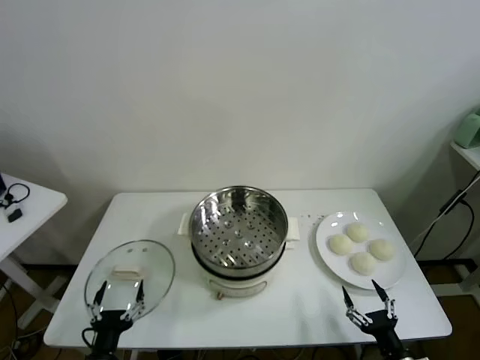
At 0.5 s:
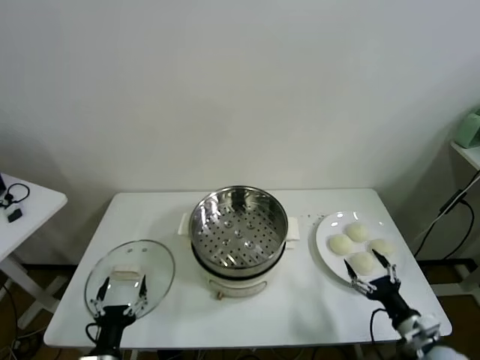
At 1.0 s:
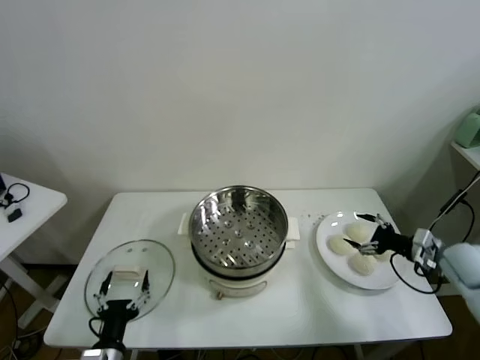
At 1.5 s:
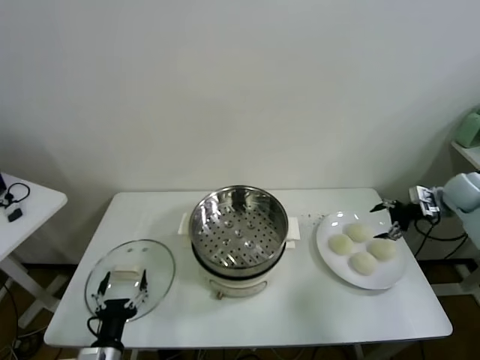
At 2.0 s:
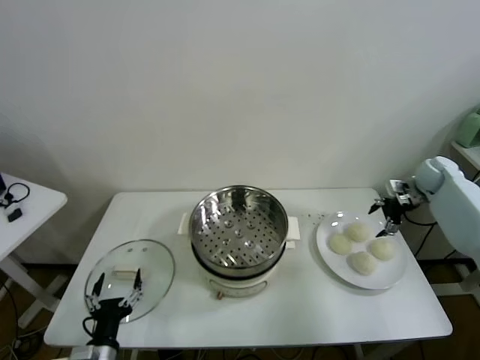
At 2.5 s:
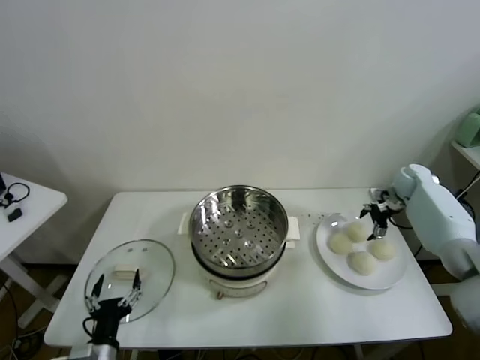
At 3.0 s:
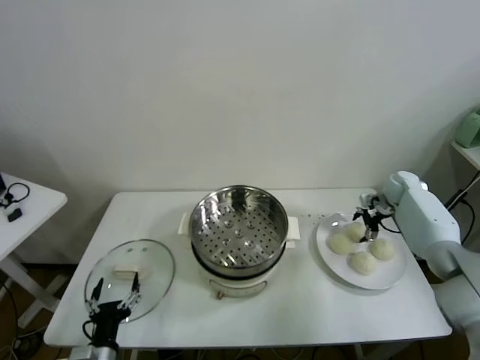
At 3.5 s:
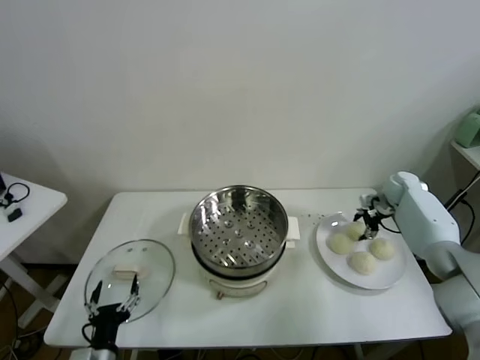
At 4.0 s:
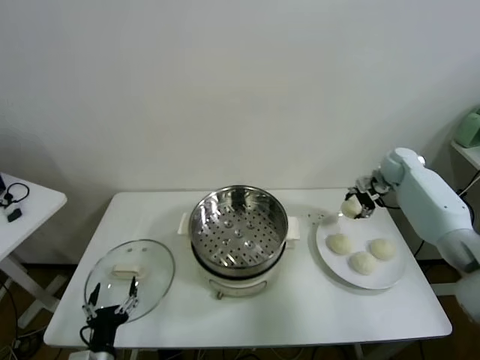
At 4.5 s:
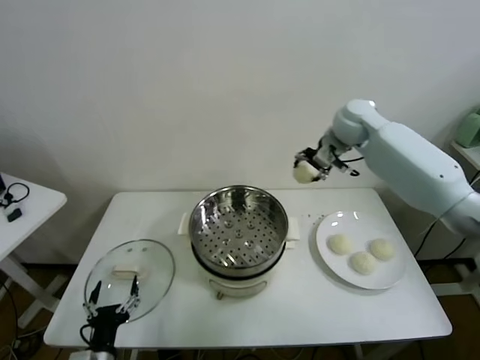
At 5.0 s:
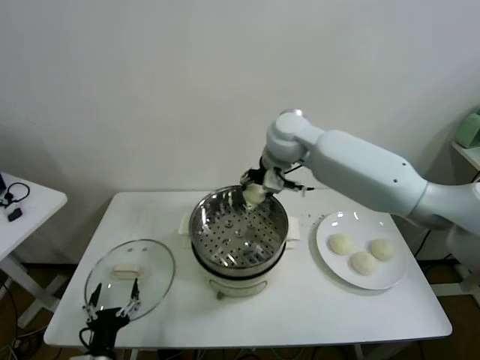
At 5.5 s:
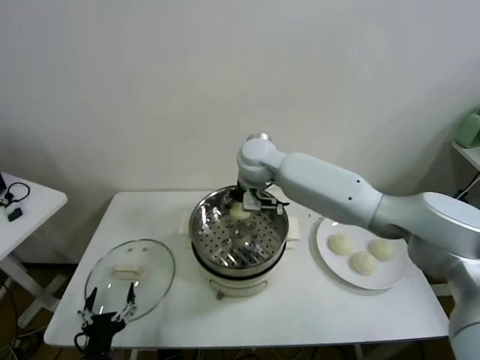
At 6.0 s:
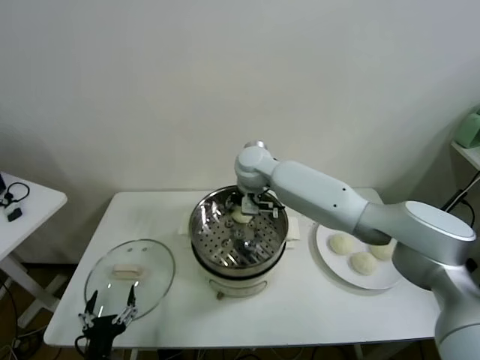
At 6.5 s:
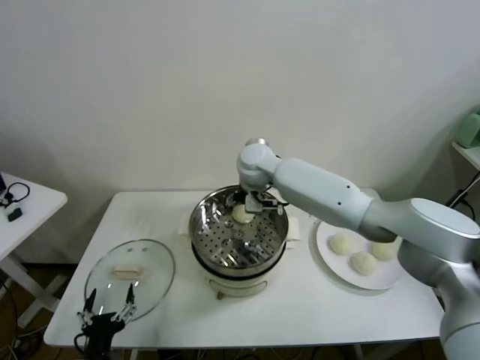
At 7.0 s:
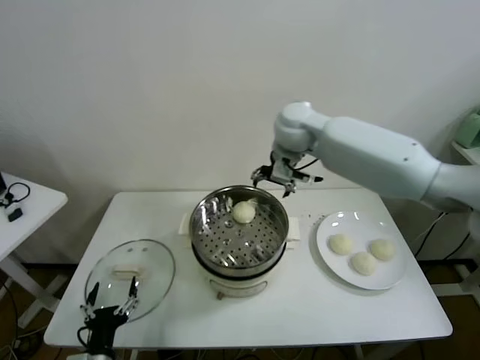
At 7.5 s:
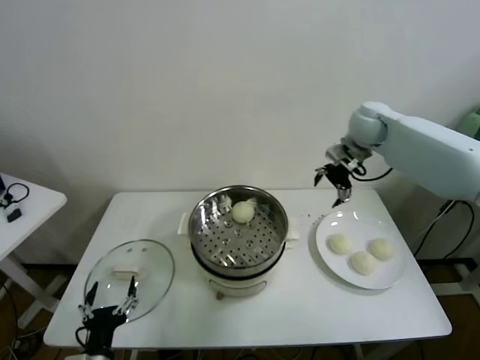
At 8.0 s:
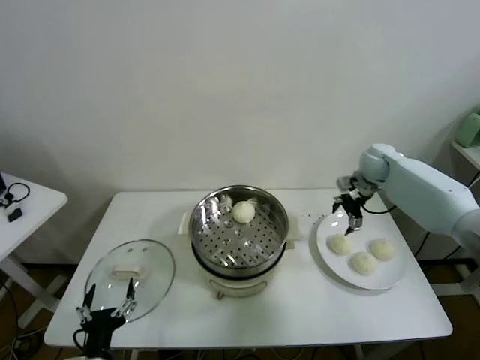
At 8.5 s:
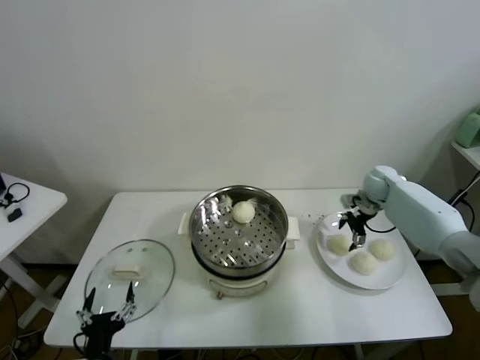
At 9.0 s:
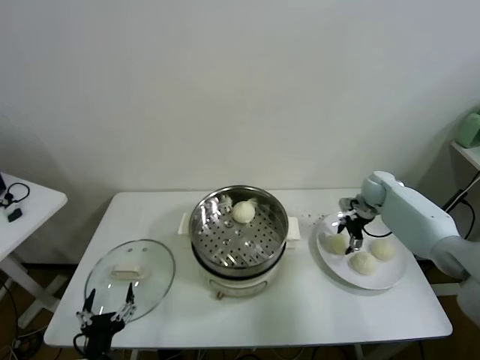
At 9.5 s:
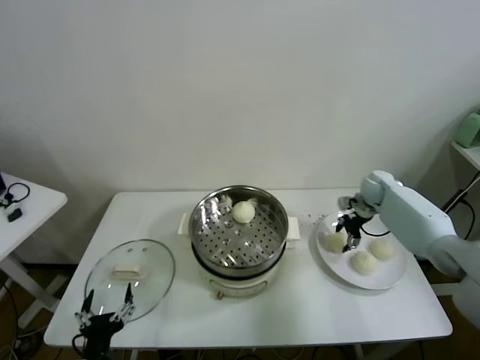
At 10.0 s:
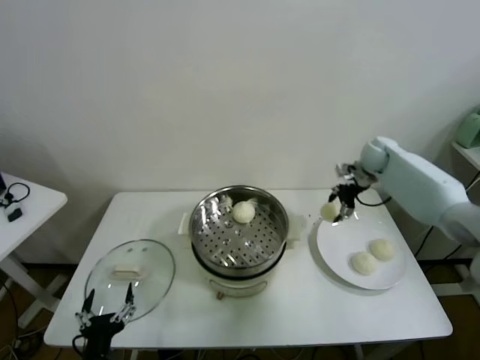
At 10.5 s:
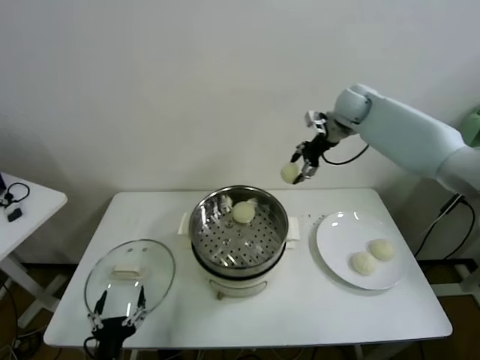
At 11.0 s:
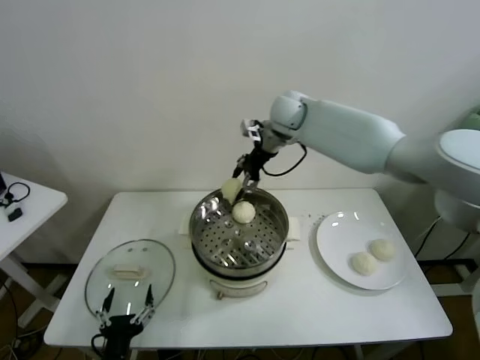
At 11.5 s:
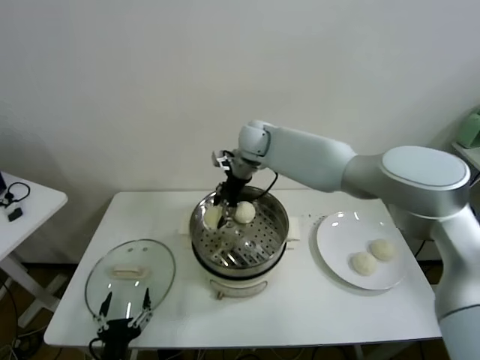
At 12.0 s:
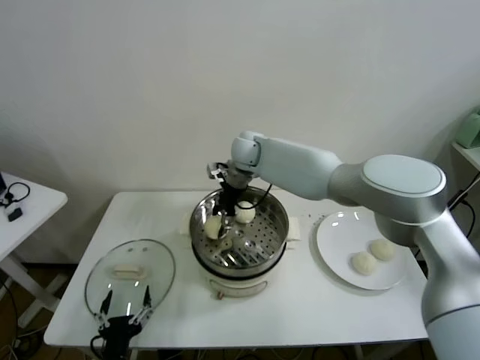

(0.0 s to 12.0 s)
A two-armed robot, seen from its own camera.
Task of the whole recording: take steamed baozi put them in steamer.
Step, 0.0 s - 3.0 s: Grasp the baozi in the plate with right gripper.
Step, 3.5 s - 6.0 s: Place the baozi on the steamer with right gripper.
Step, 6.5 s - 9.0 s: Grasp the baozi in the plate with right gripper.
2.0 s - 4.0 s: The right gripper heads to the left, covering about 10 cm, and closes.
4.0 s - 6.0 s: The right gripper shifts some 40 cm to the left.
6.0 s - 8.0 s: The right gripper shifts approximately 35 cm to the right, and opens up.
8.0 s - 10.0 s: The right gripper moves some 5 cm, and closes up.
10.0 s - 12.0 s: The right gripper shifts about 35 cm to the left.

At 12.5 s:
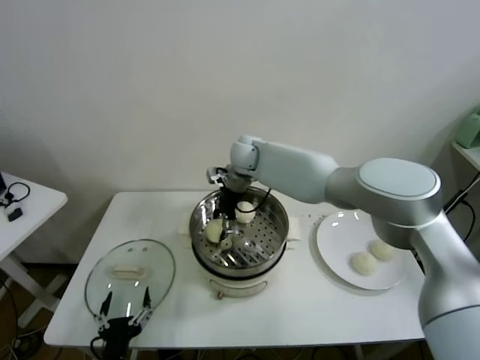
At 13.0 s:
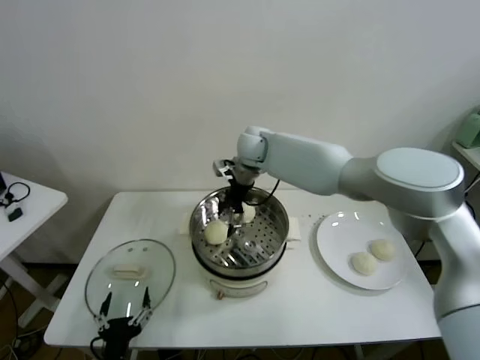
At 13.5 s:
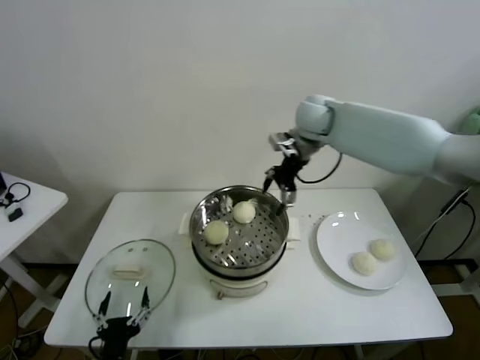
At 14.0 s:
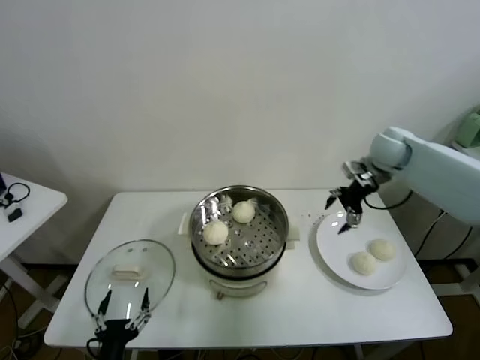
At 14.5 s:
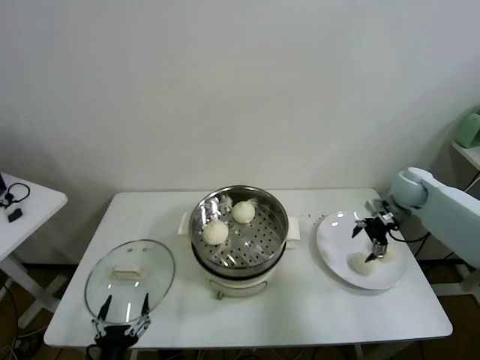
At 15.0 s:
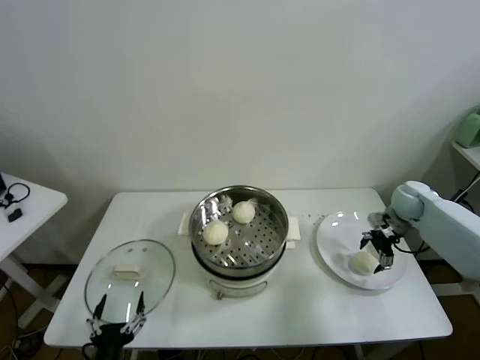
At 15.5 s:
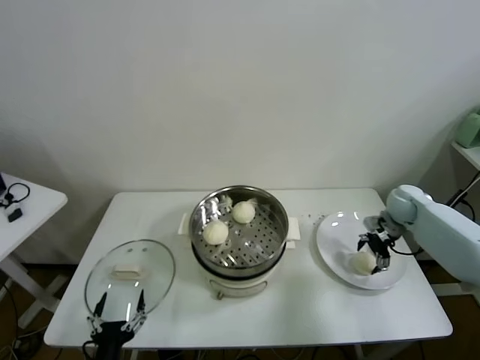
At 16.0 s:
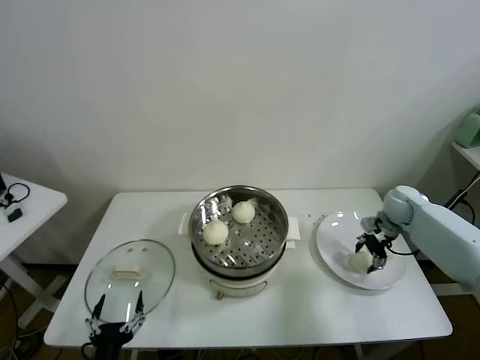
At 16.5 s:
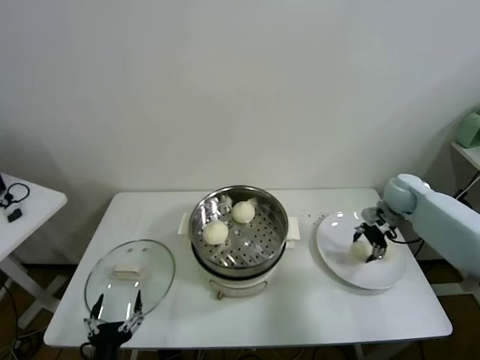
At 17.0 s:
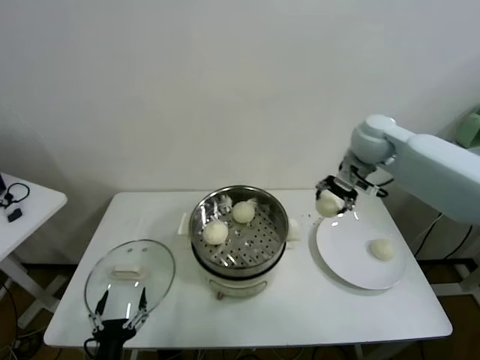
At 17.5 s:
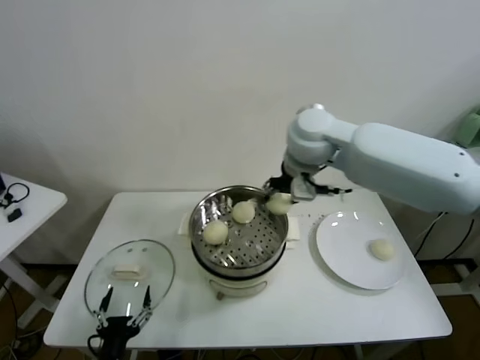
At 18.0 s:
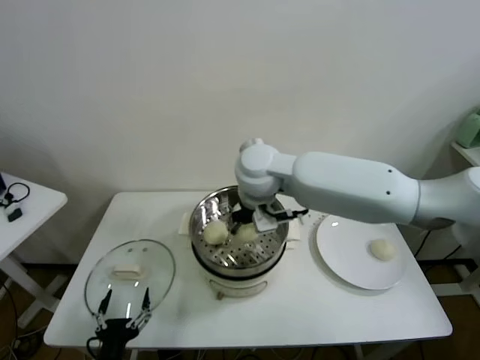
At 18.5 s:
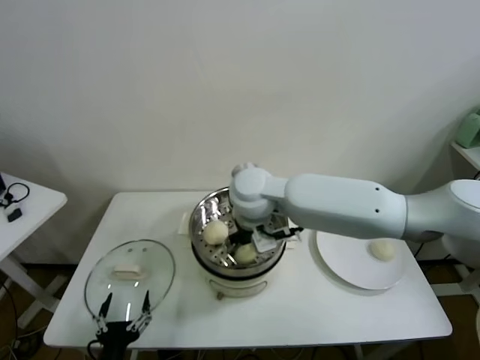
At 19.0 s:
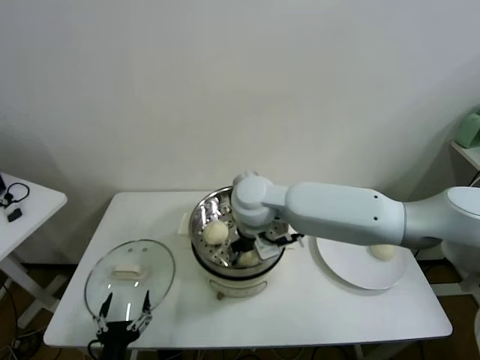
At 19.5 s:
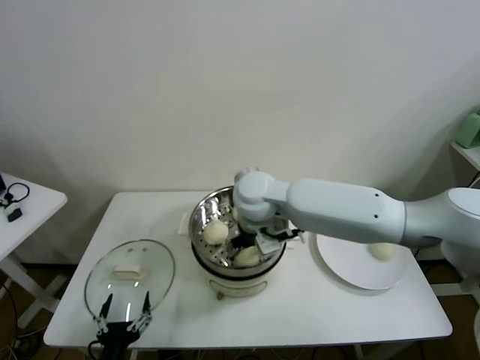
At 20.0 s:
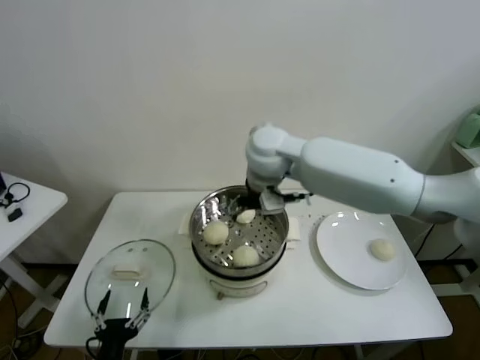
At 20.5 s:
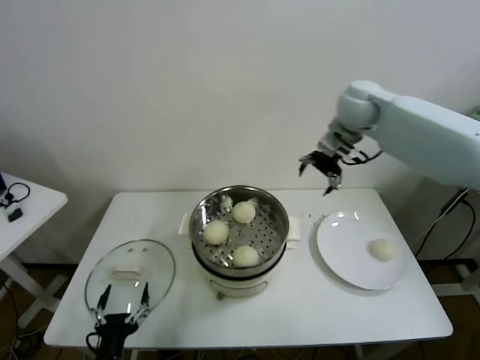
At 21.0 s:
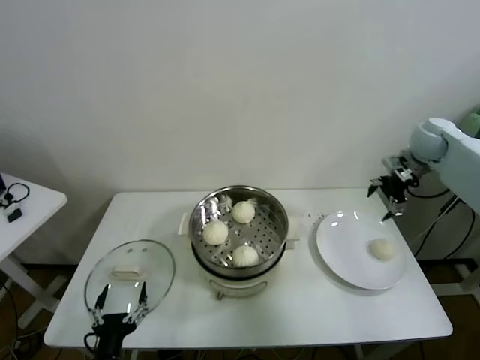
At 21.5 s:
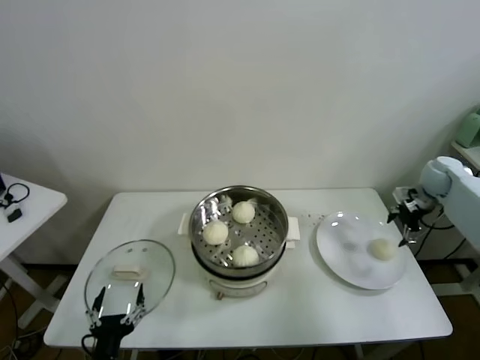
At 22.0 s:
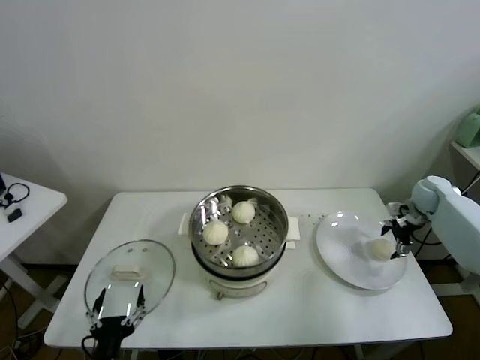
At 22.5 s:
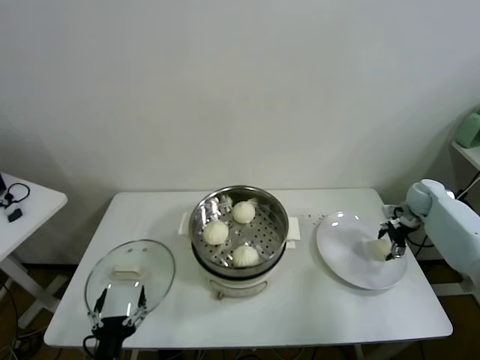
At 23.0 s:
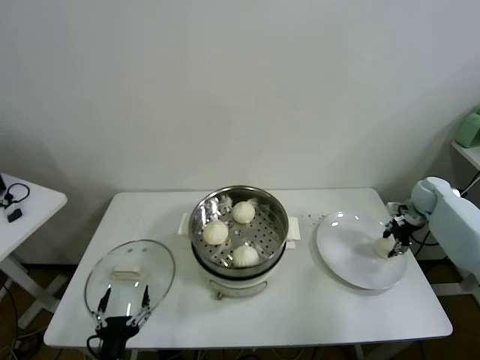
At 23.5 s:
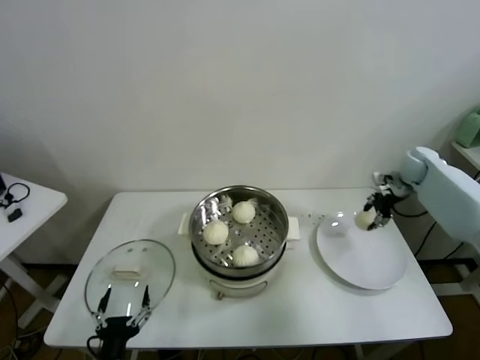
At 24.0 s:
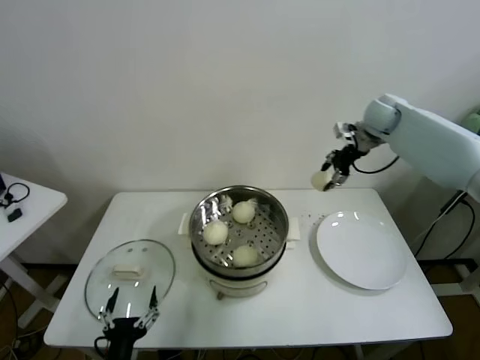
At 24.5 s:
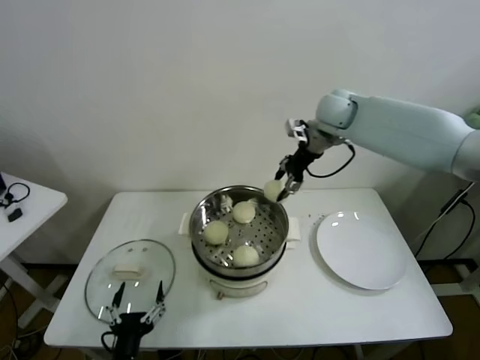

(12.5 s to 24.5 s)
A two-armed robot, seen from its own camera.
Task of the whole recording: take steamed baozi put them in steamer.
Step, 13.0 s - 16.0 s: Grasp the baozi in the plate with right gripper.
Step, 16.5 s - 19.0 s: Place the baozi on the steamer with right gripper.
Step, 19.5 s - 22.5 s: Grasp the baozi in the plate with right gripper.
12.5 s - 14.5 s: The right gripper moves to the right, some 40 cm.
14.5 s - 16.5 s: The right gripper closes its fingers.
16.5 s - 18.5 s: The right gripper goes about 40 cm to the left.
18.5 s - 20.5 s: The right gripper goes roughly 30 cm to the right, forward and upward, and opens.
20.5 s - 22.5 s: The right gripper is displaced downward and to the right by roughly 35 cm.
22.5 s - 24.5 s: The right gripper moves to the left and upward, approximately 35 cm, and closes up.

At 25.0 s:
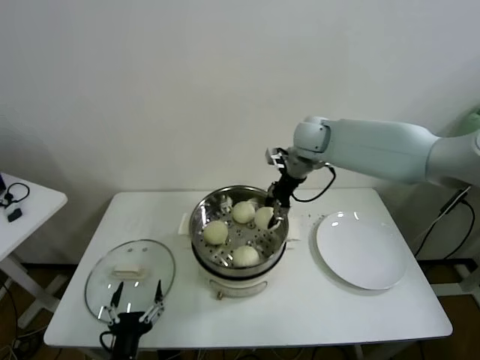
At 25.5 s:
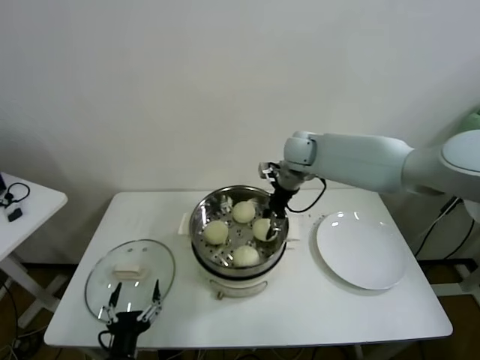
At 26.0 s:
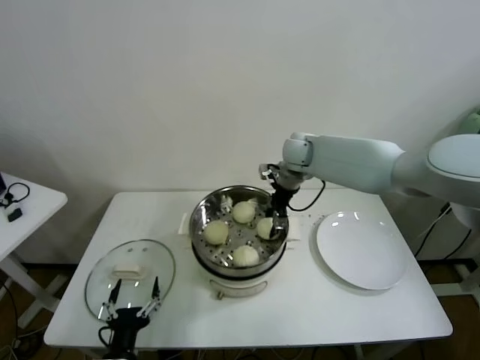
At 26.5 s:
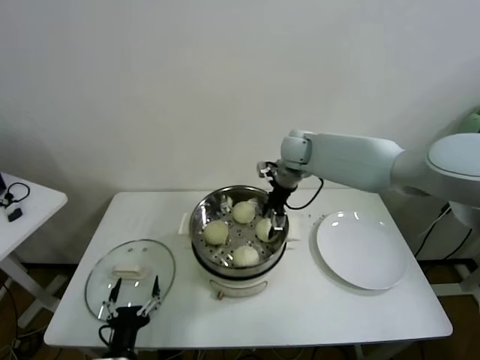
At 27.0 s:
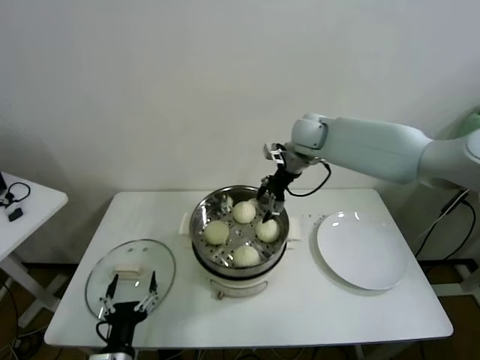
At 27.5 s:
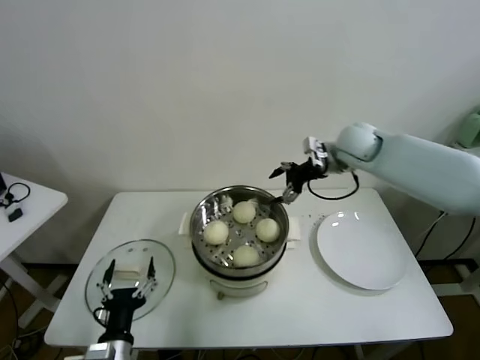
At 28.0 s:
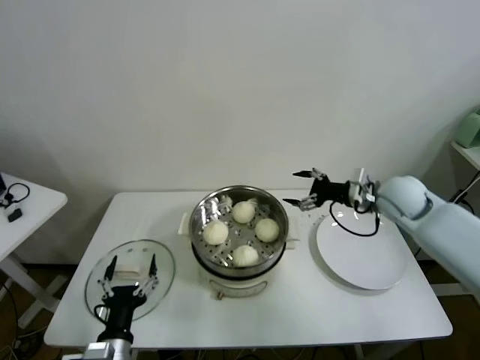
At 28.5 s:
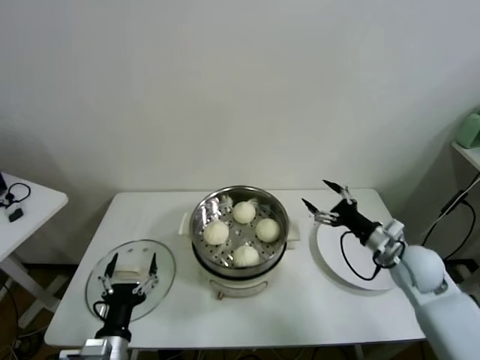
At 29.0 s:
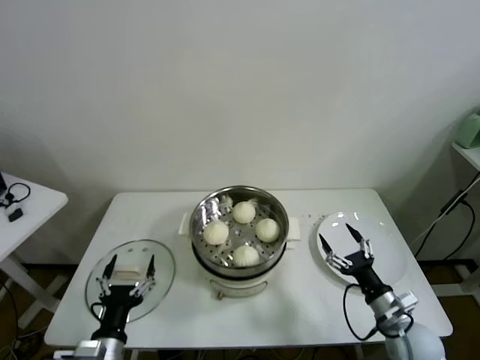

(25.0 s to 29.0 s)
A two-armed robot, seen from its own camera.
Task of the whole recording: take steamed baozi put them in steamer.
25.0 s - 27.0 s: The right gripper opens its fingers.
27.0 s - 29.0 s: The right gripper is displaced backward, downward and to the right by roughly 50 cm.
